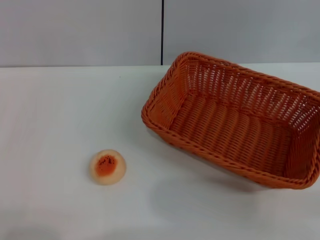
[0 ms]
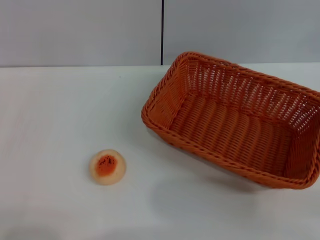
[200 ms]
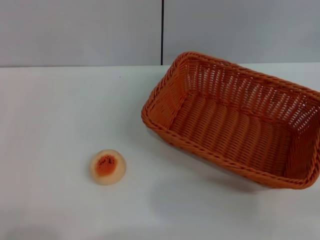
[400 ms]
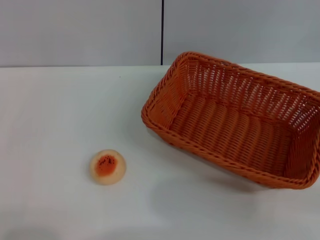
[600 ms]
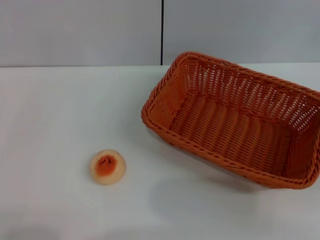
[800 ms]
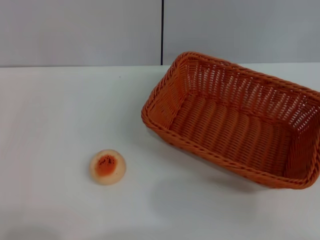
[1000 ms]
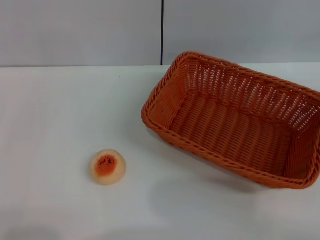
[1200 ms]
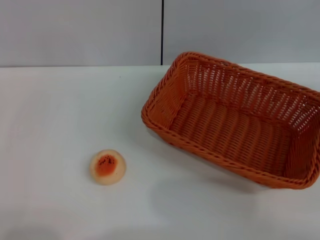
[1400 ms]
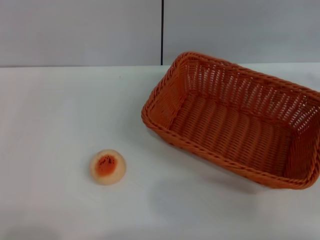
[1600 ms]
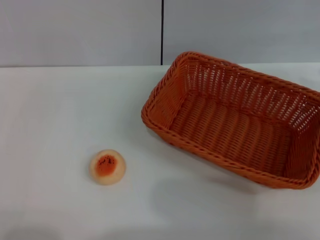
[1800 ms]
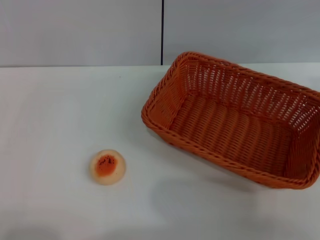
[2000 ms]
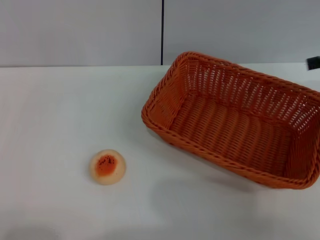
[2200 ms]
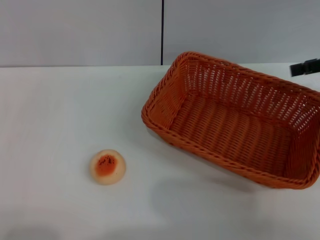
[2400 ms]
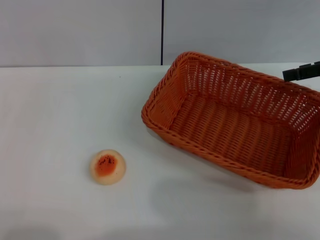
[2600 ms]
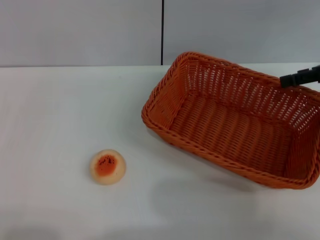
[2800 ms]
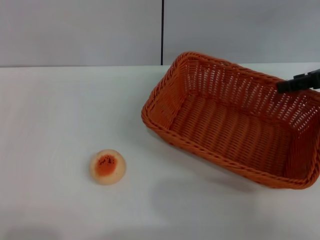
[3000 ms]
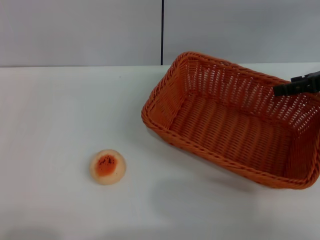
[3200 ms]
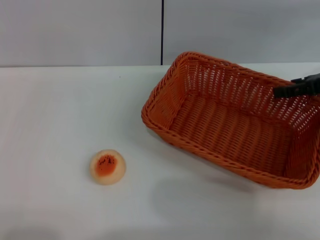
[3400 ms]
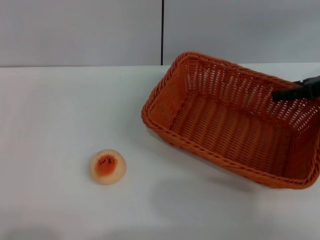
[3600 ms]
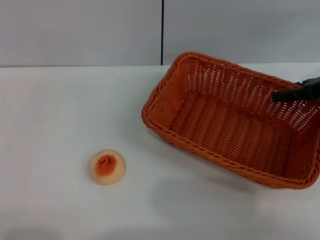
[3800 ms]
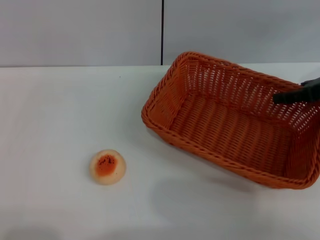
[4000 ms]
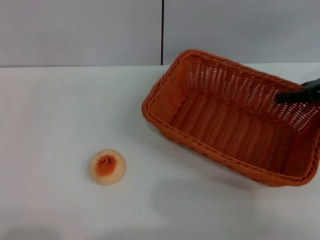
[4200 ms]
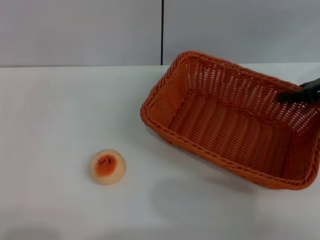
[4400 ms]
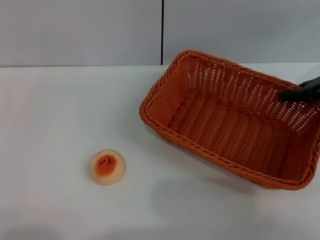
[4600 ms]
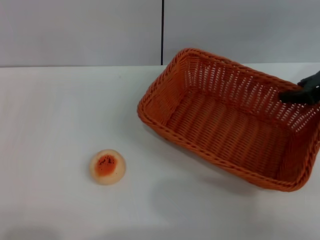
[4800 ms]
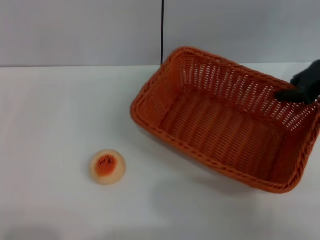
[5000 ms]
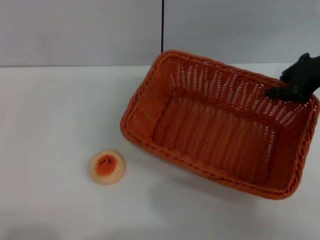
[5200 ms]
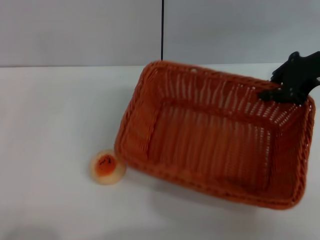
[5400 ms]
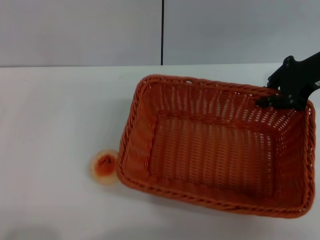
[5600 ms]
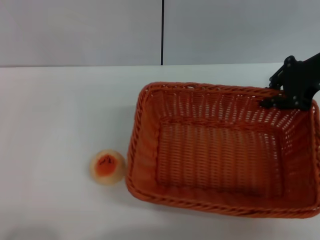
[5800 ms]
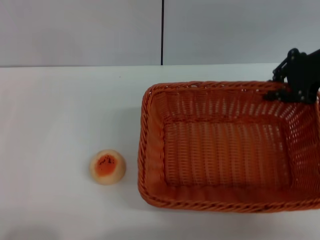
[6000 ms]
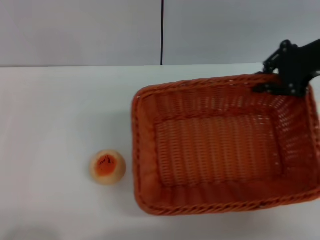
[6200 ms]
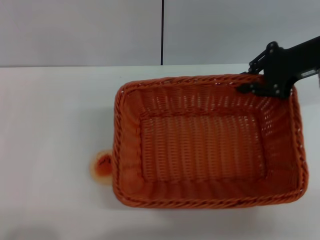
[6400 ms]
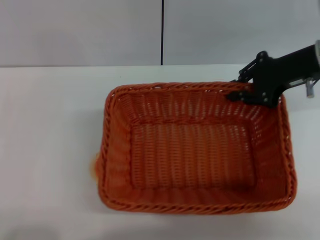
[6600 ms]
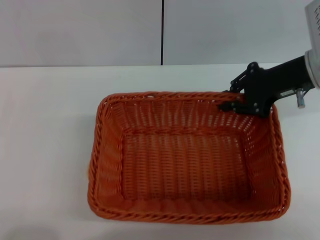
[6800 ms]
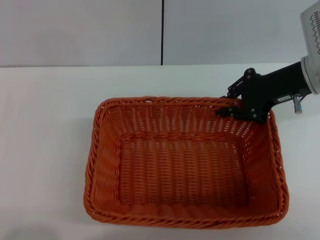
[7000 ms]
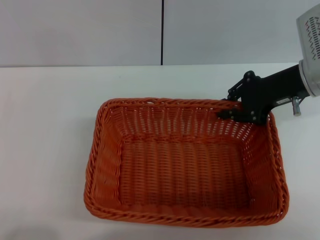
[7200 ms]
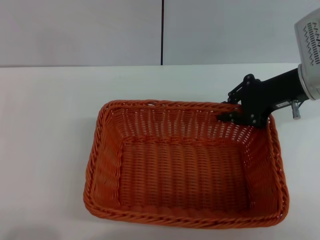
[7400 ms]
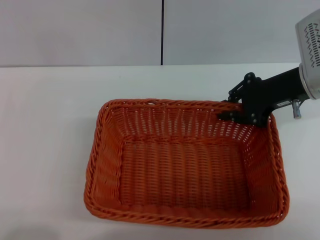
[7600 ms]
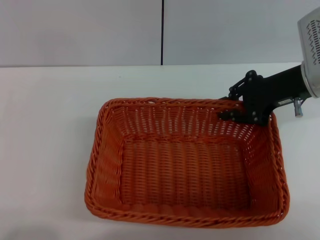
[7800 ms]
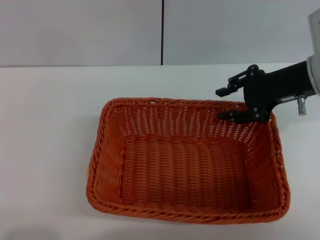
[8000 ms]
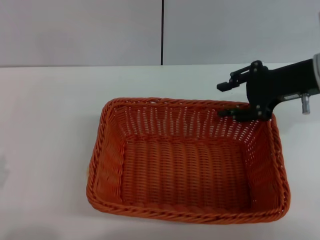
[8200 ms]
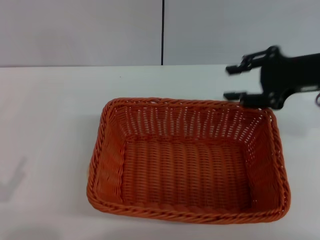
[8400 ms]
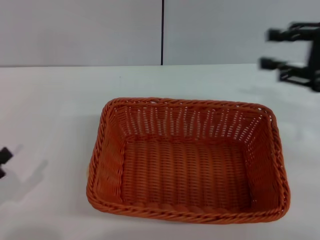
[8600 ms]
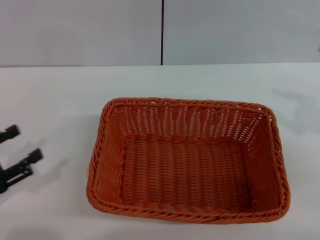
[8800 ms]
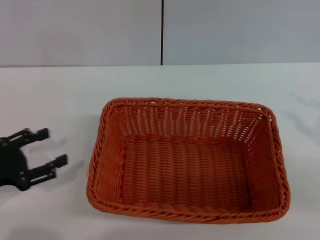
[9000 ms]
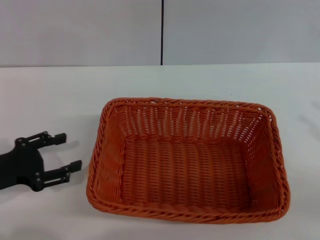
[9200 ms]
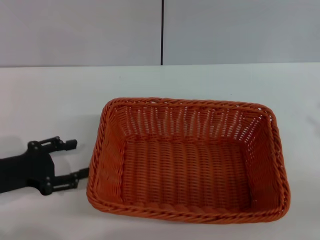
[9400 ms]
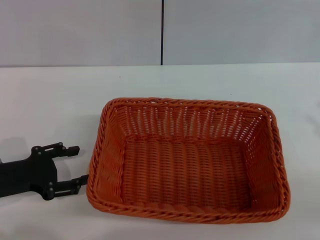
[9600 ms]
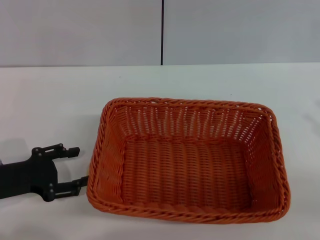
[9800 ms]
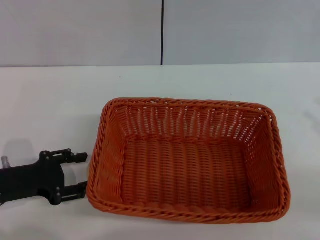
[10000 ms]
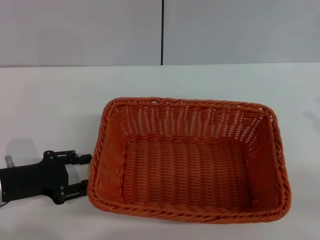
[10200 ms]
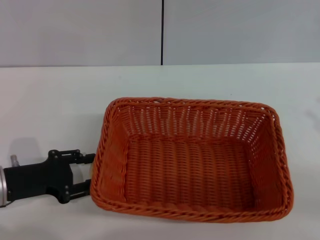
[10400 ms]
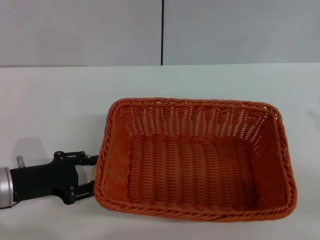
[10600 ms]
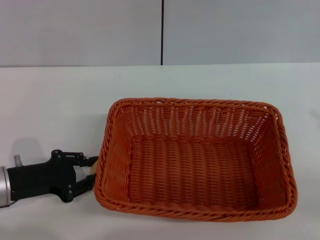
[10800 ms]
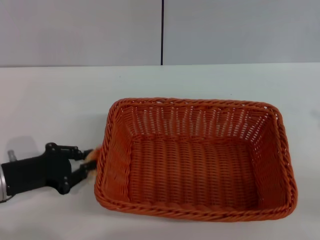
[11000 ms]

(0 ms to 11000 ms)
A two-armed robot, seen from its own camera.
Step, 0 ms - 8400 ms: Move the basket to the center of view with the right gripper.
1600 ms - 3200 ms: The right gripper shifts some 10 cm to the left and downward.
3200 ms - 4800 ms: The right gripper closes up.
4800 ms - 6200 ms: The right gripper ends up about 5 cm from where it was.
6200 ms - 7800 ms: The right gripper moves some 5 cm.
7800 ms - 9400 ms: The left gripper moves forward, roughly 15 cm; the right gripper moves backward and to the right, some 25 cm, and opens.
9400 ms - 11000 ms: The left gripper closes.

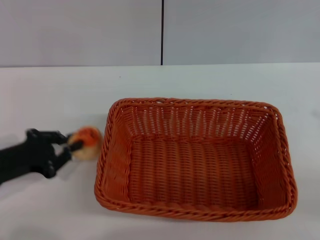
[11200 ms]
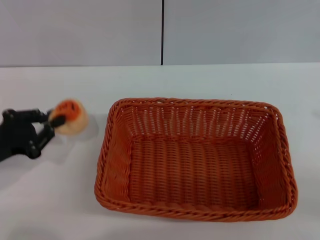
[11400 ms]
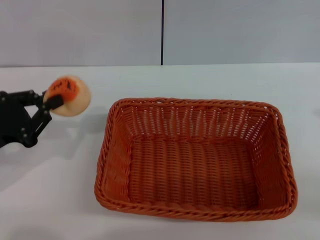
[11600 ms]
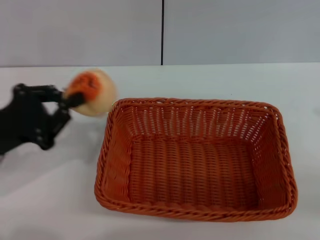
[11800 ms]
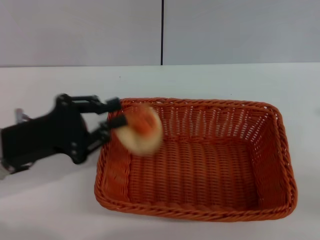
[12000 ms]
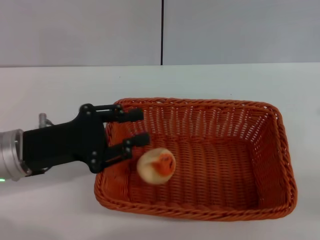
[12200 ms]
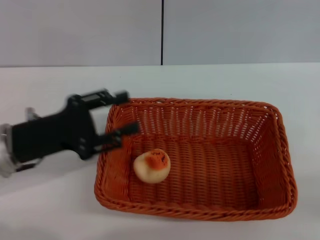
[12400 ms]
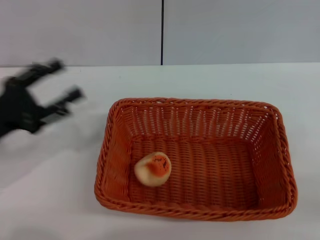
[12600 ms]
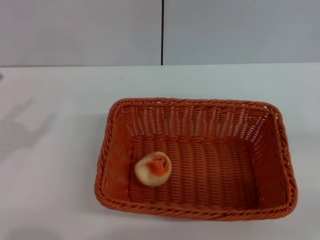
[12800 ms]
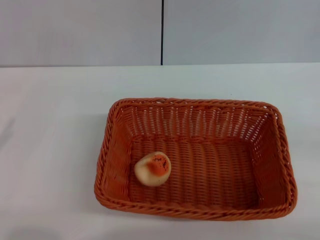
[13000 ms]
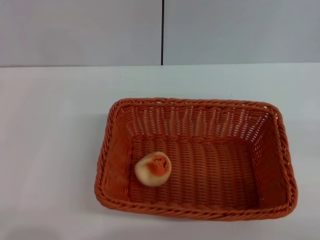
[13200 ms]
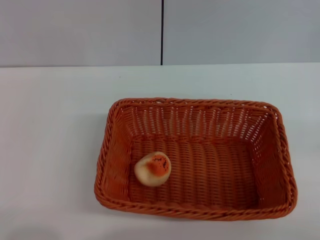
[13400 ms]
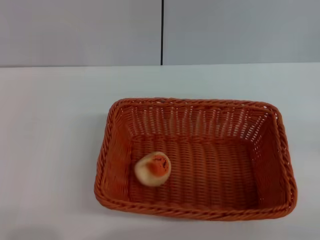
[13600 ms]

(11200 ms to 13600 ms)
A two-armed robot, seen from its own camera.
Step, 11400 ms - 12400 ms: Place the egg yolk pastry into the basket with the left gripper.
11200 ms - 12400 ms: The left gripper moves to the right, approximately 5 cm.
12400 ms - 13600 ms: The right gripper moves downward, some 10 cm, while the left gripper shifts some 20 cm backward and to the left, and opens.

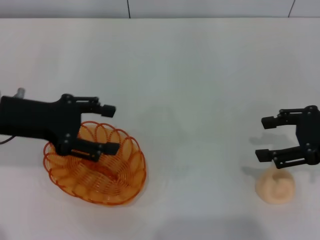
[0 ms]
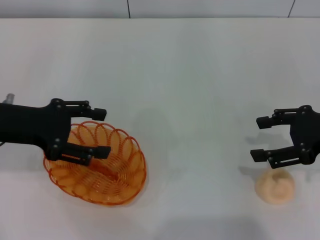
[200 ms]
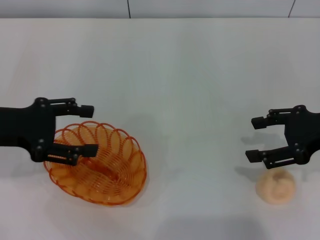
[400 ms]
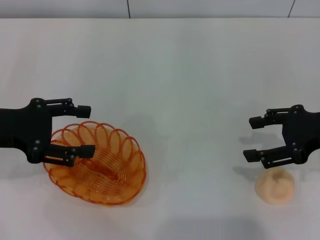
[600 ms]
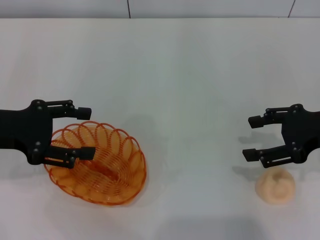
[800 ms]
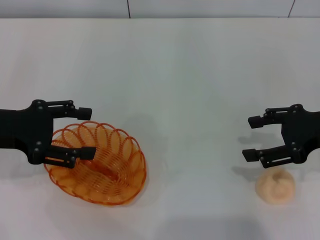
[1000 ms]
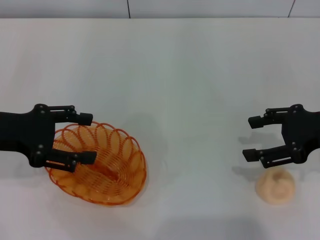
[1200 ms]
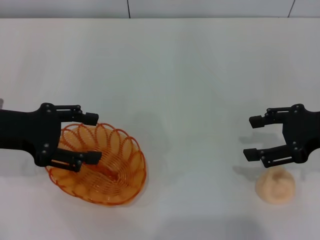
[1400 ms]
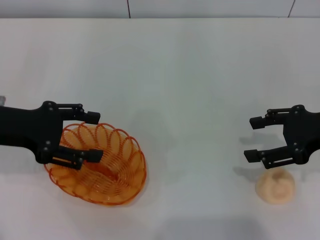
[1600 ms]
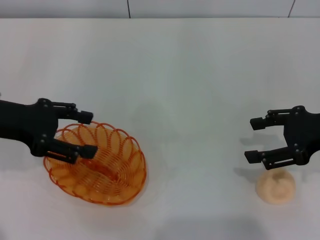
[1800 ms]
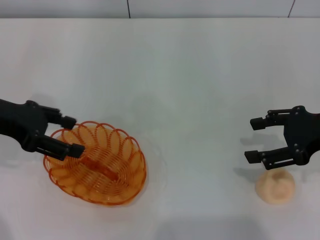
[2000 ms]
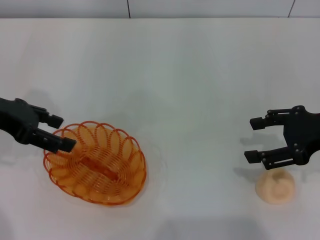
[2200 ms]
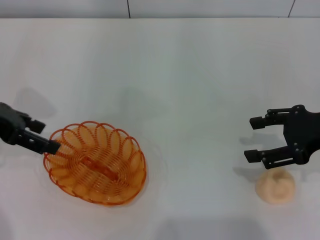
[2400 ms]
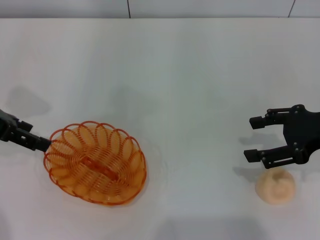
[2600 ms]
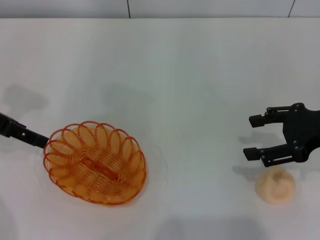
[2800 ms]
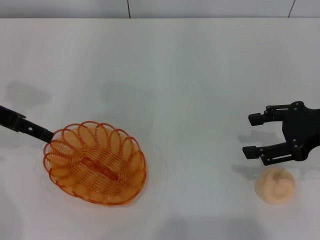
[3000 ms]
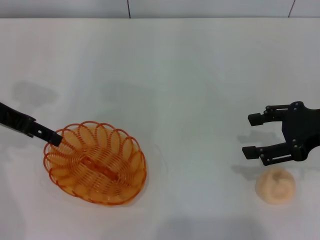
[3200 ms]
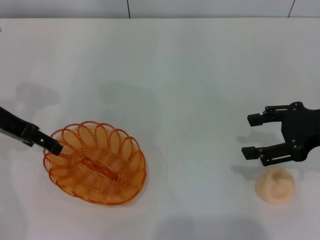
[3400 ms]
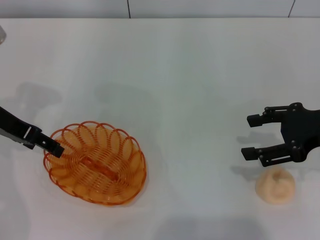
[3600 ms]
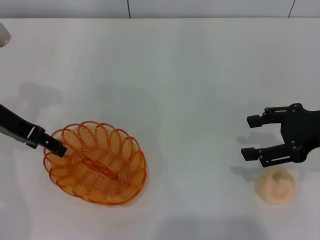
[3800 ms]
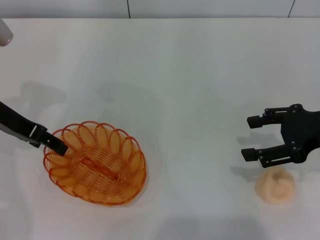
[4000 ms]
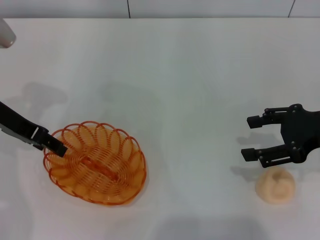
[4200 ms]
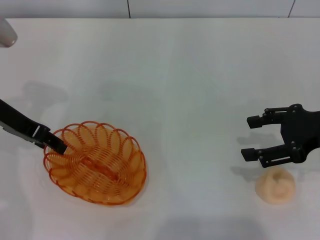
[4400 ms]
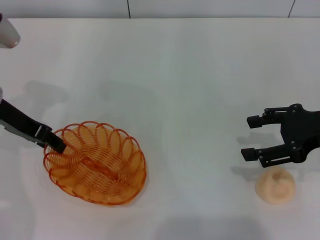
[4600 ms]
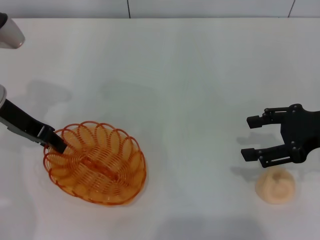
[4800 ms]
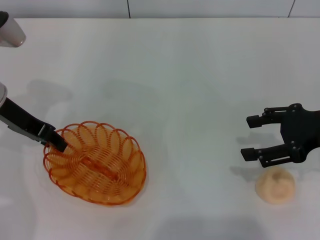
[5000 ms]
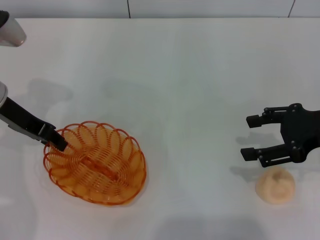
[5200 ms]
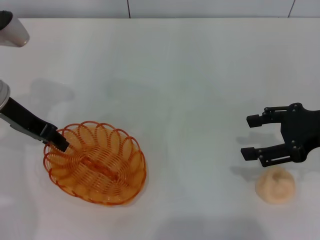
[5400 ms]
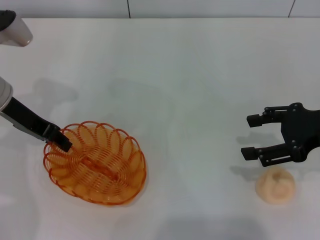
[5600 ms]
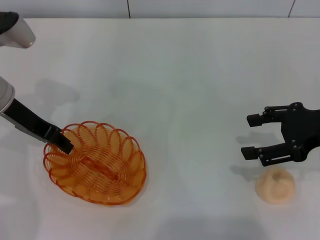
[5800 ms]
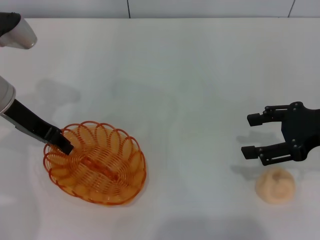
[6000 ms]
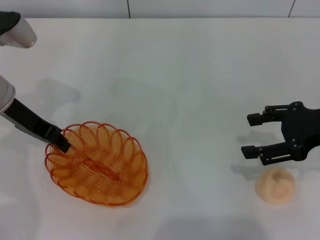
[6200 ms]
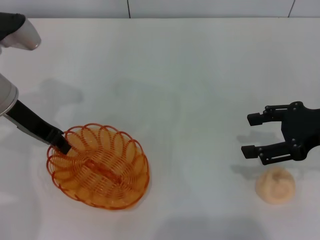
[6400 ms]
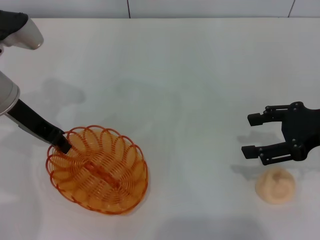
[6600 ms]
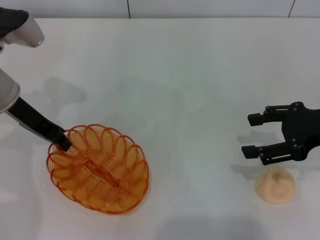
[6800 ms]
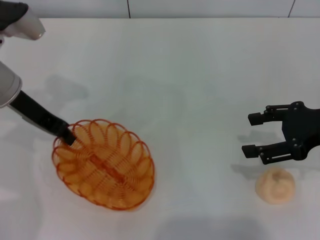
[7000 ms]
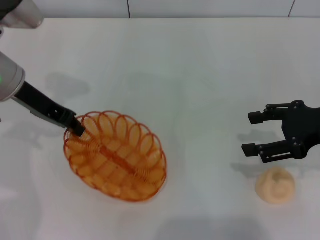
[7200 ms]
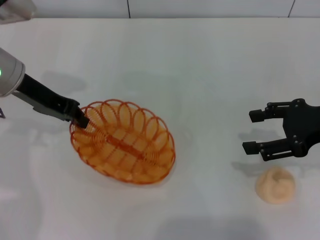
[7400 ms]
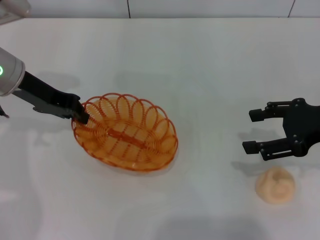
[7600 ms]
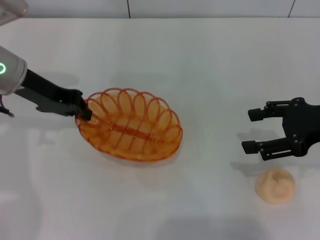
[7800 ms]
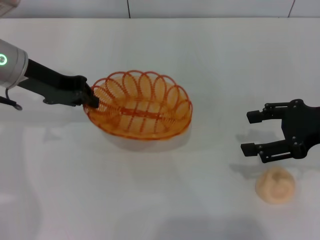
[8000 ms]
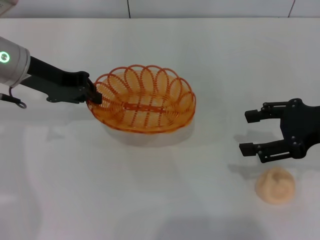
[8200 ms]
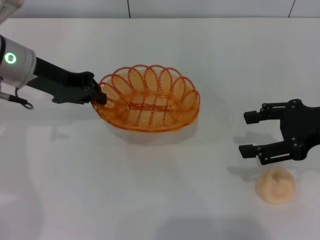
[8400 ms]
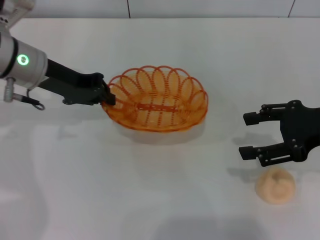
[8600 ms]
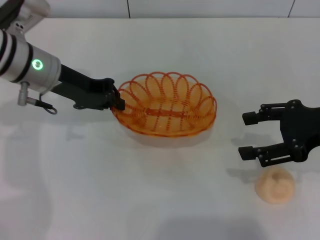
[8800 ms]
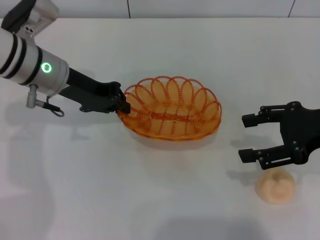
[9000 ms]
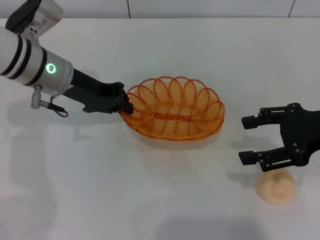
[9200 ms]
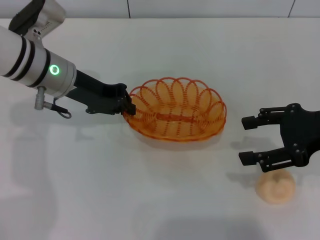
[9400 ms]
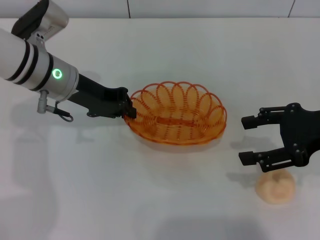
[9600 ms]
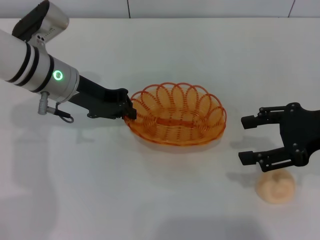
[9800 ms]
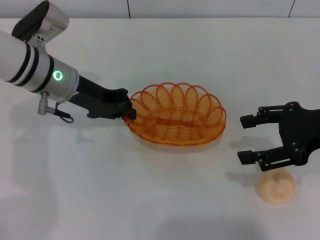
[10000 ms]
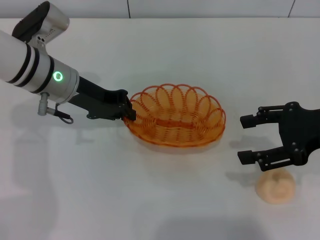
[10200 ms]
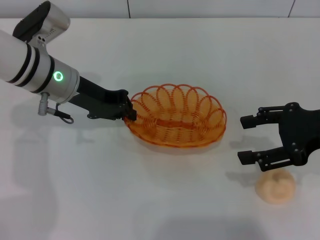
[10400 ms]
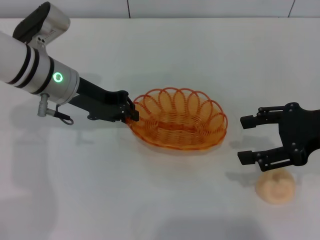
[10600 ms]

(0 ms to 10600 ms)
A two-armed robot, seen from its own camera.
Step, 0 ms - 7600 ms: Pick up the basket with the left gripper.
0 ms - 1600 ms: There are only small adjustments of the grippers.
1600 ms - 3000 ms: The left gripper ends up about 5 cm from where it was.
3000 ms - 4600 ms: The left gripper changes place by roughly 5 cm.
4600 ms - 6000 ms: The grippers move only a little.
7600 ms - 9000 ms: The left gripper ends up about 5 cm from where it was.
9000 ms - 10600 ms: There are only small adjustments of the grippers.
